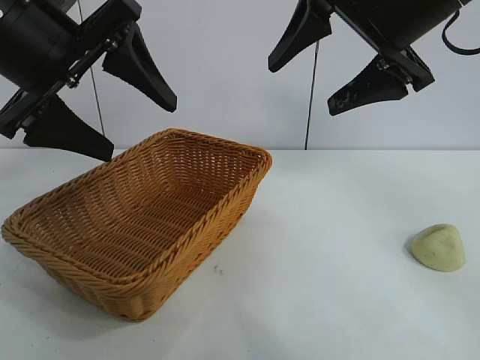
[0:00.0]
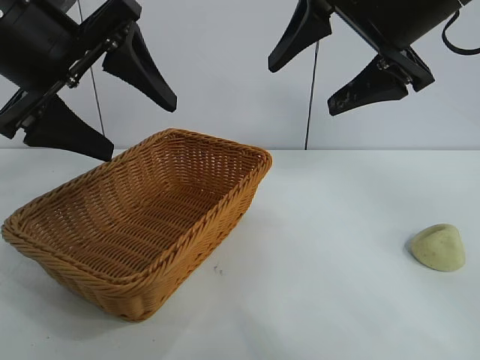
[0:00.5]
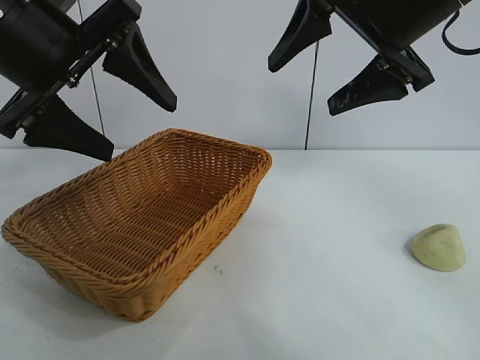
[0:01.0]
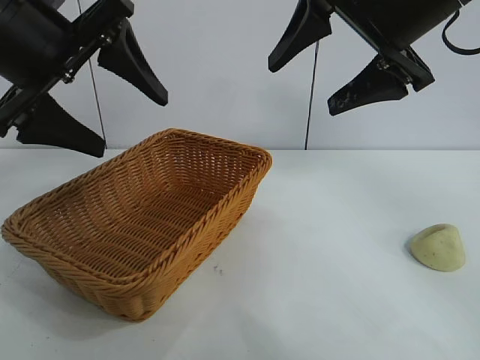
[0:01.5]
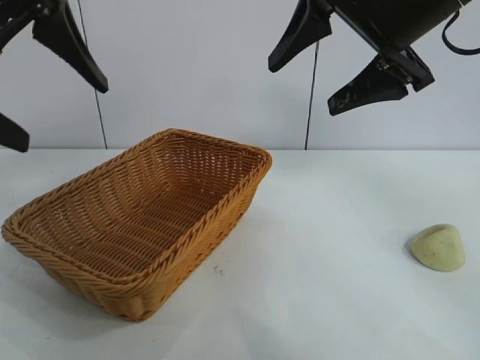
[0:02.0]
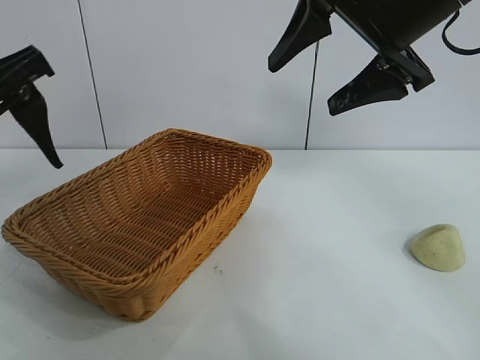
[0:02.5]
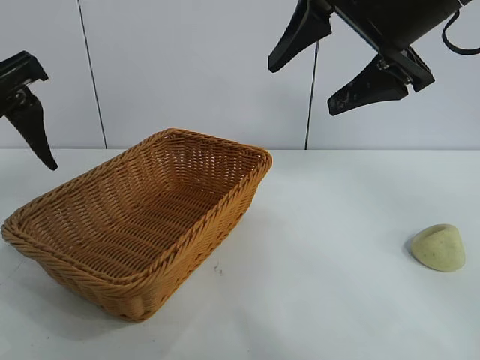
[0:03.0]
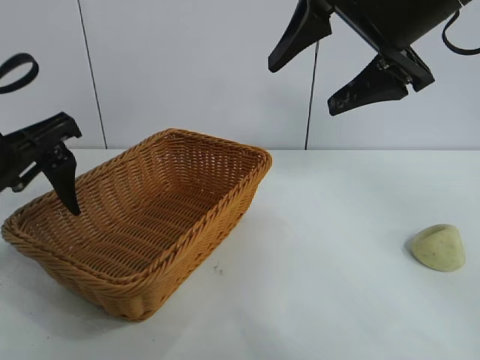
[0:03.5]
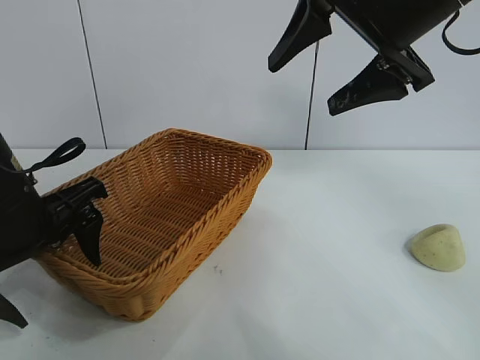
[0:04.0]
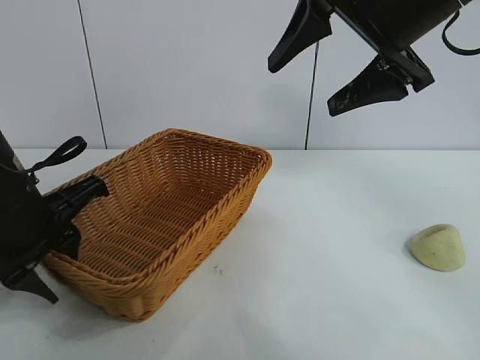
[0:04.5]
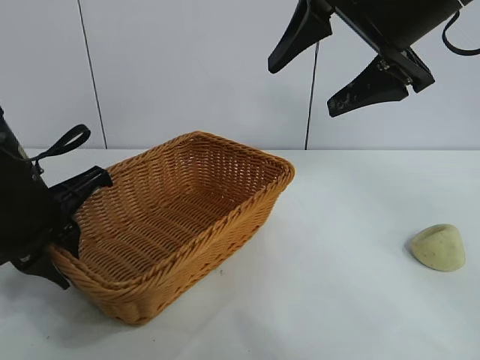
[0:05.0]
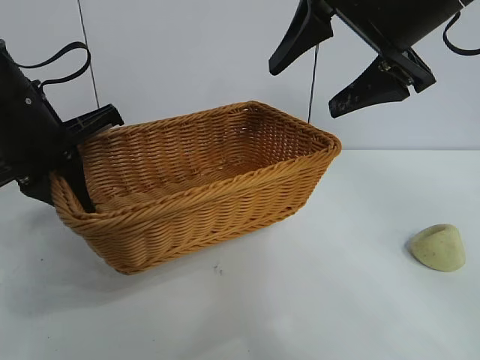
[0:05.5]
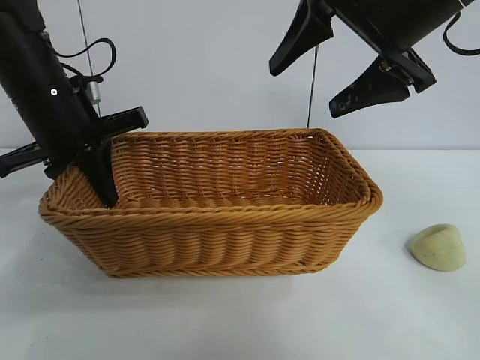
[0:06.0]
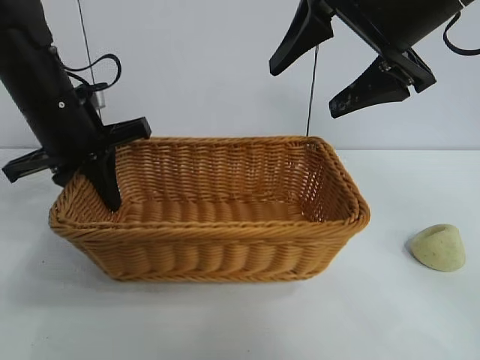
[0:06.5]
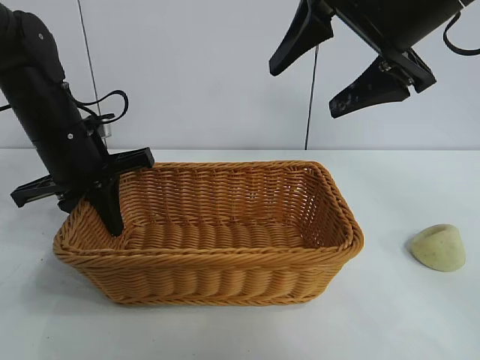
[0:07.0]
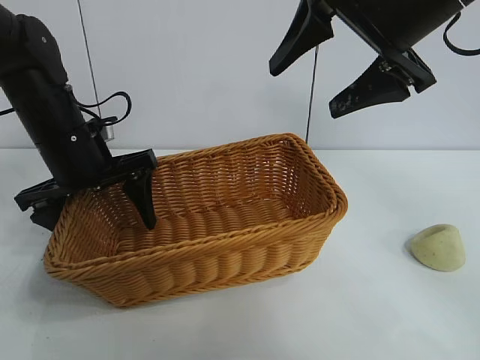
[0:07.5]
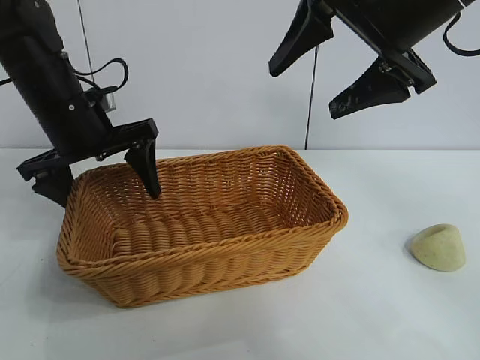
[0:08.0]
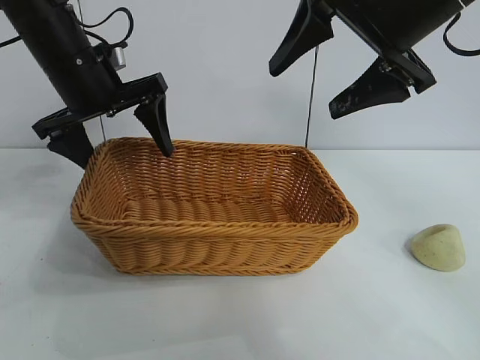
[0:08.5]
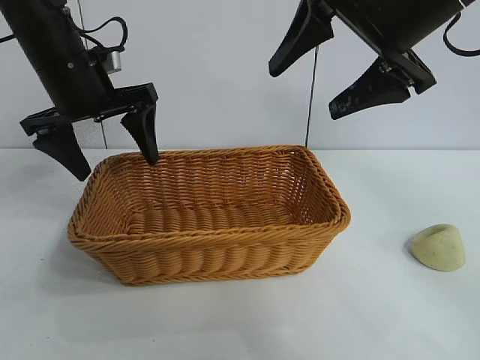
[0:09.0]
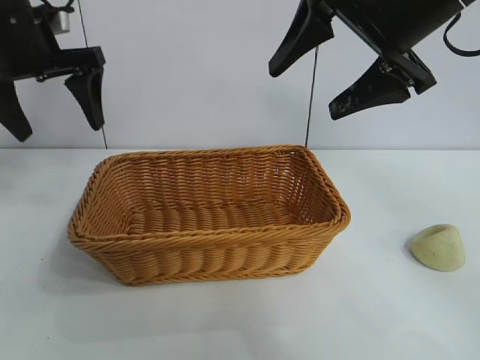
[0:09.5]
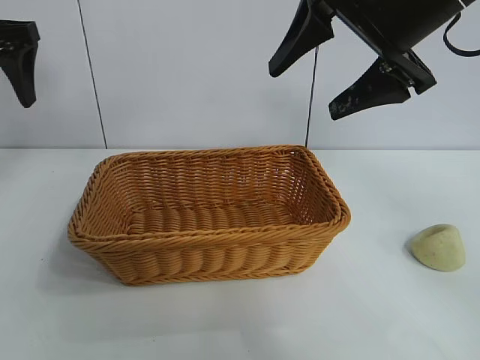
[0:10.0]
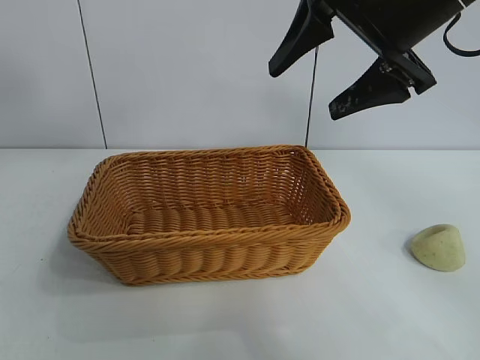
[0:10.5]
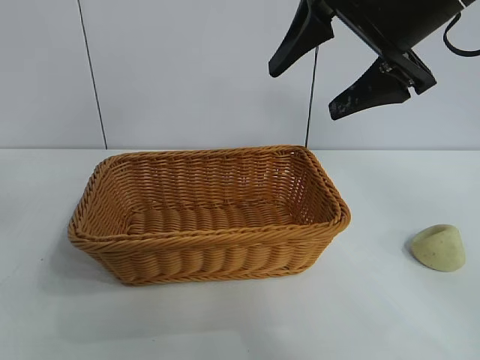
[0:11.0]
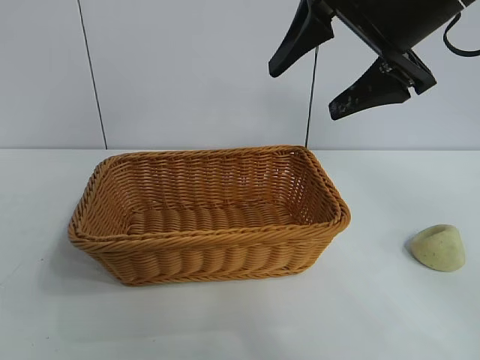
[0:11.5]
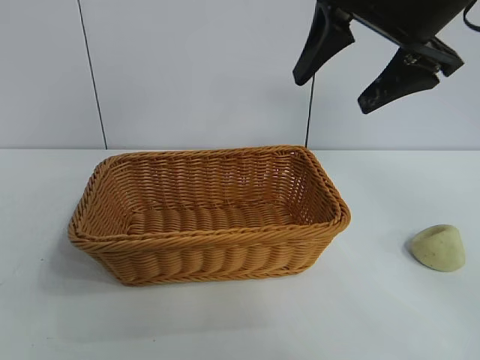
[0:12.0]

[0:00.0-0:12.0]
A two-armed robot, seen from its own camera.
Task of the whole recording: pick up the egg yolk pastry and put it into the basket.
Step, 0:01.5 to 0:04.5: Grasp the basket with left gripper.
Step, 0:05.0 to 0:07.5: Place the basket in the center of view with left gripper.

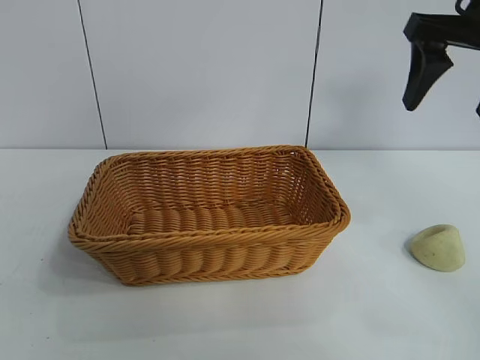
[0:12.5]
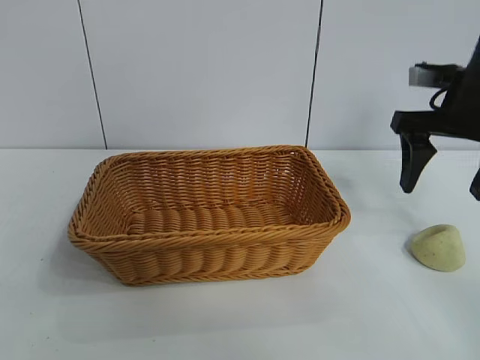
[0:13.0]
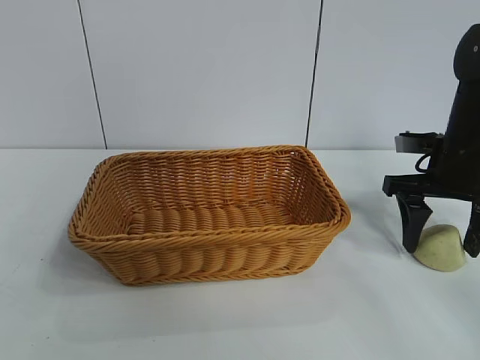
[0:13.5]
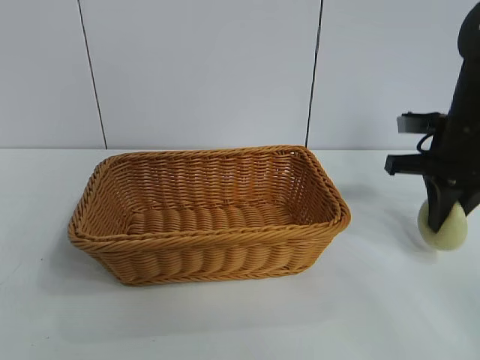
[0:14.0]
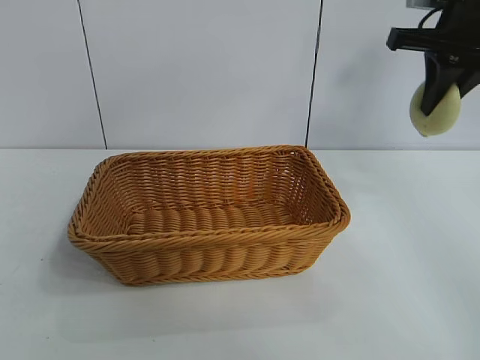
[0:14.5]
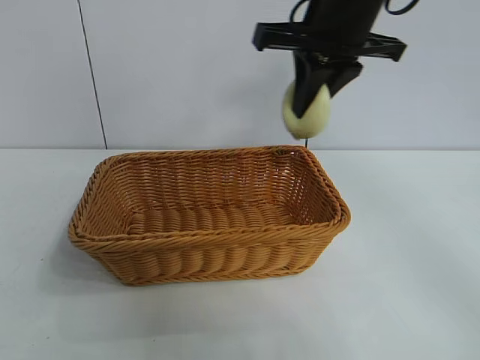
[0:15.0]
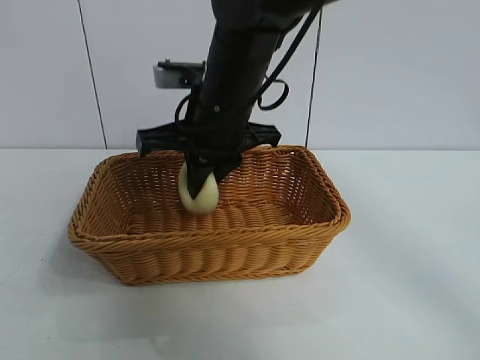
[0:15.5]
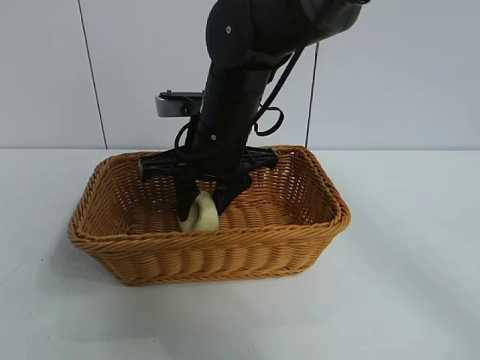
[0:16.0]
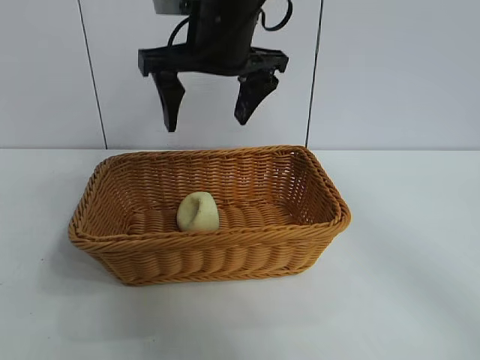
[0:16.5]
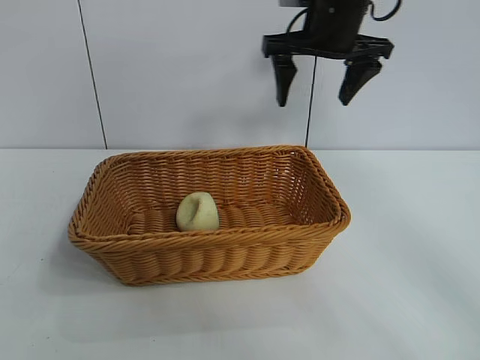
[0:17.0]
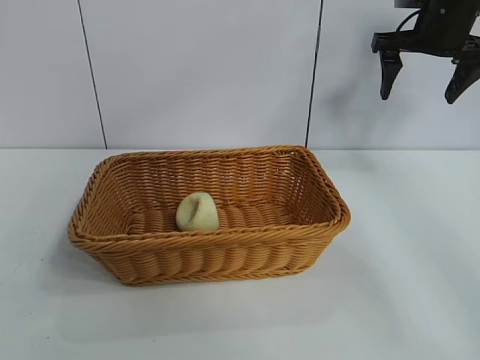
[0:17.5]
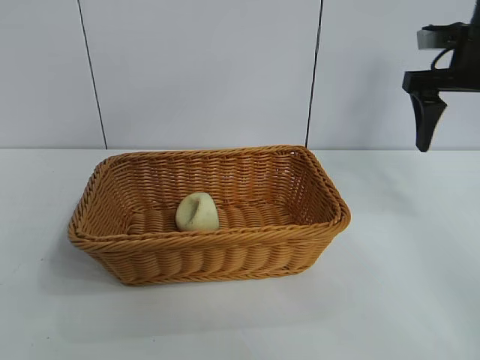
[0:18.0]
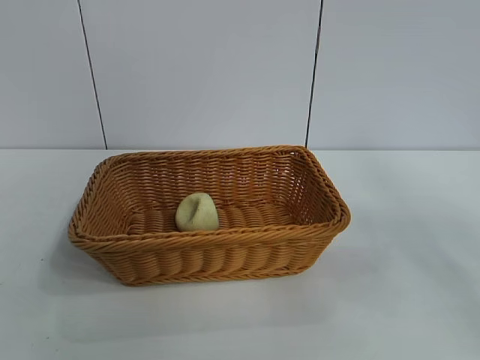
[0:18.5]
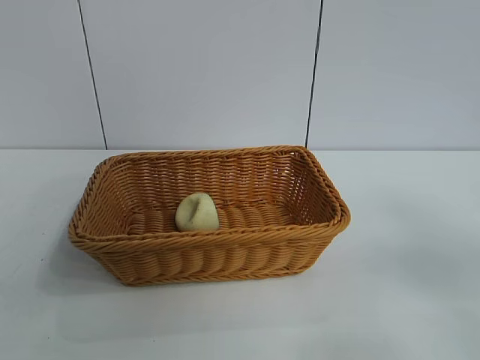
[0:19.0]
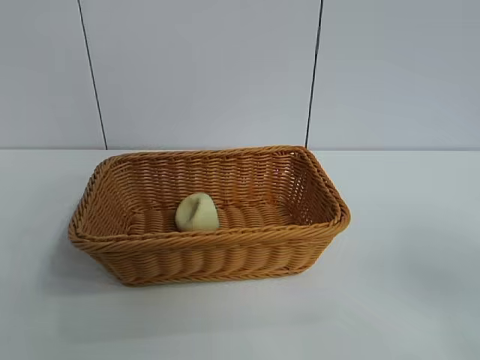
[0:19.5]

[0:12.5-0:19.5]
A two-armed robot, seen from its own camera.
Task of the whole recording: pick up the egg yolk pastry and put it into the basket.
Step, 0:14.0 to 0:16.0: Place the egg yolk pastry in the basket with right gripper.

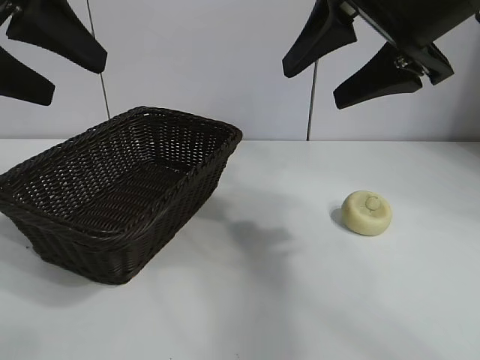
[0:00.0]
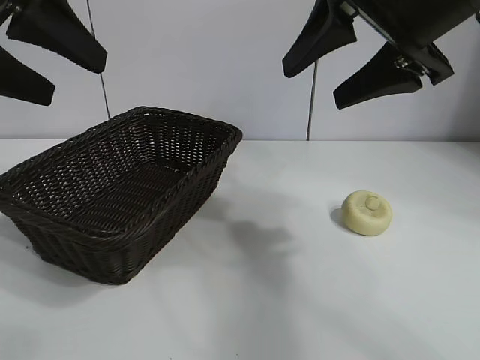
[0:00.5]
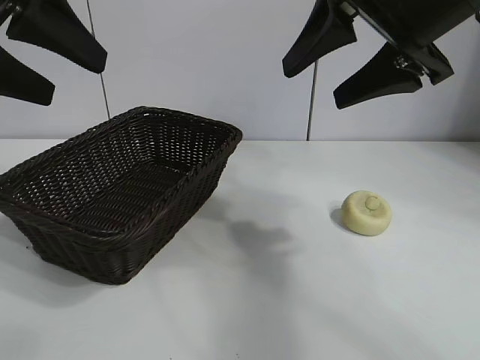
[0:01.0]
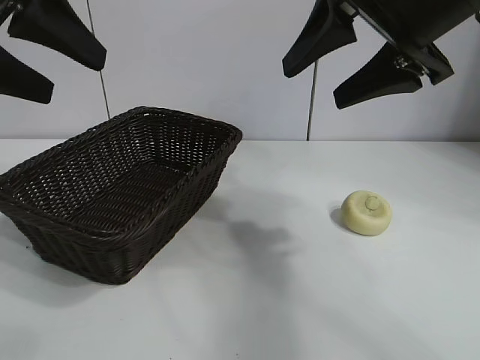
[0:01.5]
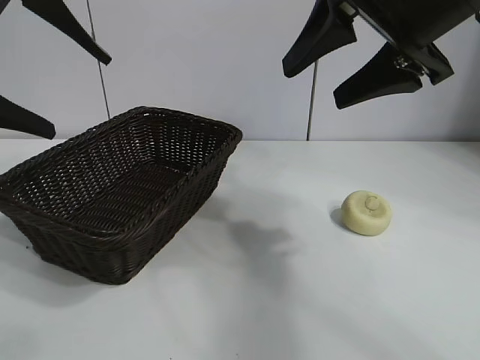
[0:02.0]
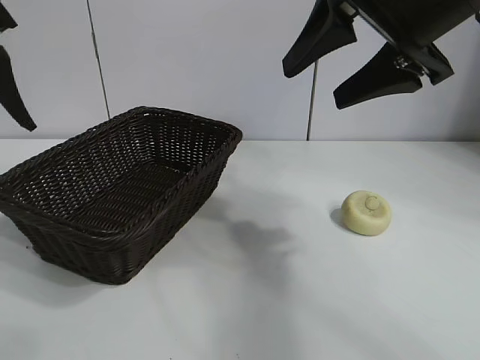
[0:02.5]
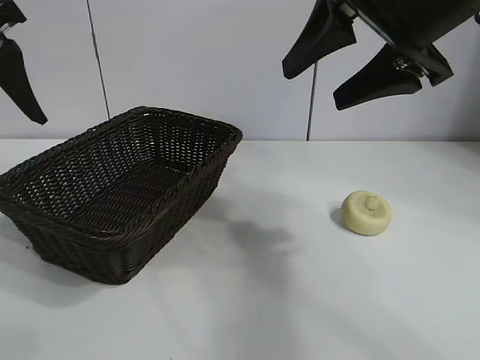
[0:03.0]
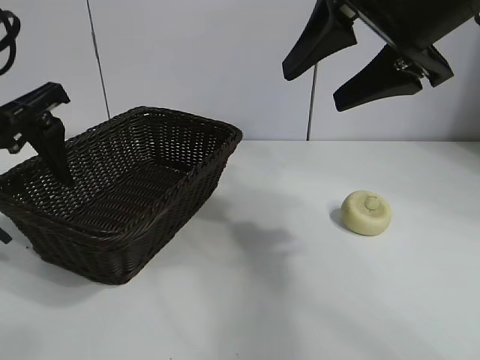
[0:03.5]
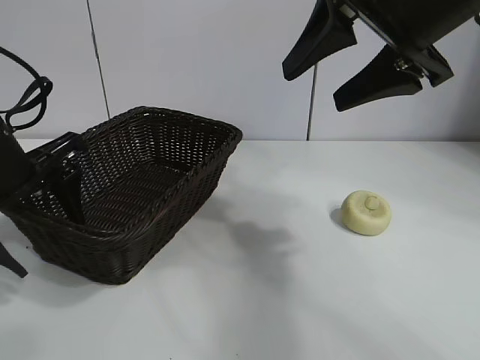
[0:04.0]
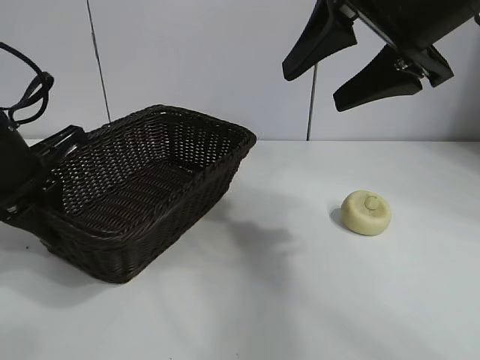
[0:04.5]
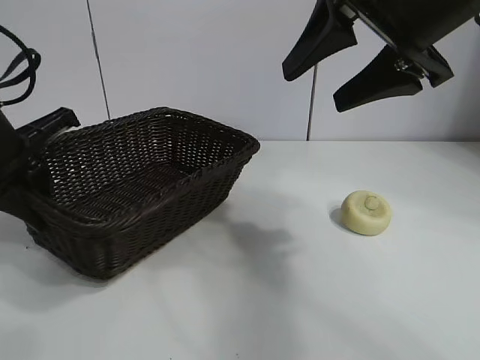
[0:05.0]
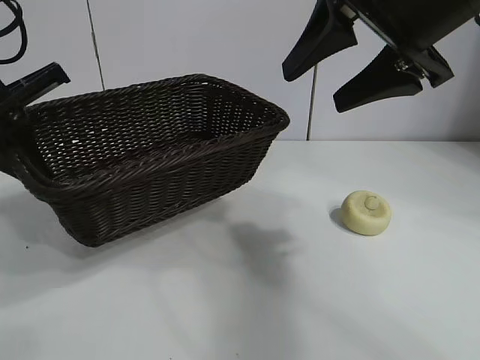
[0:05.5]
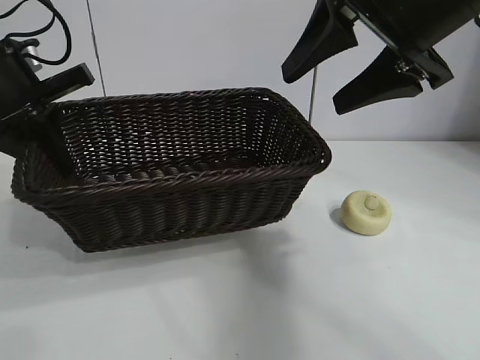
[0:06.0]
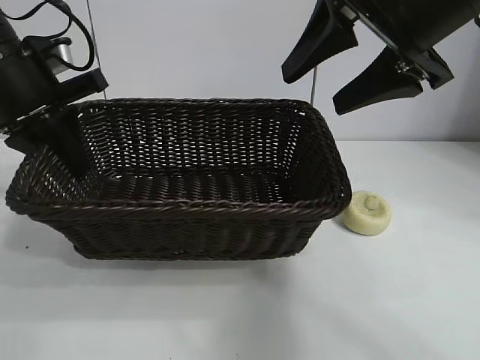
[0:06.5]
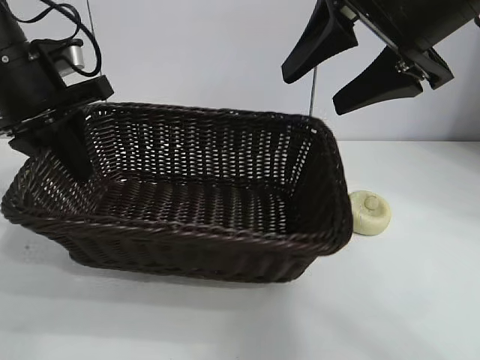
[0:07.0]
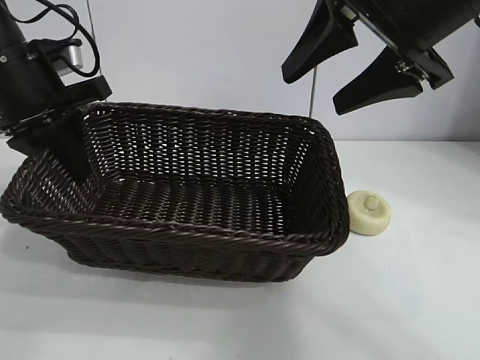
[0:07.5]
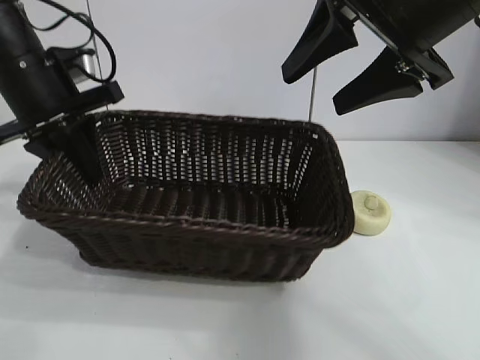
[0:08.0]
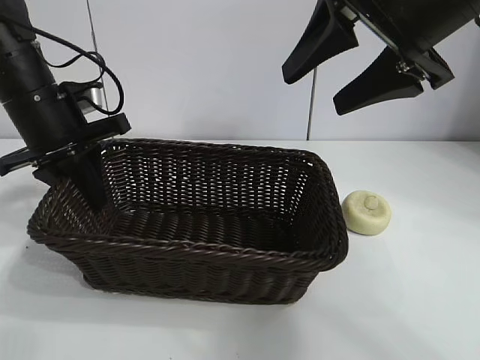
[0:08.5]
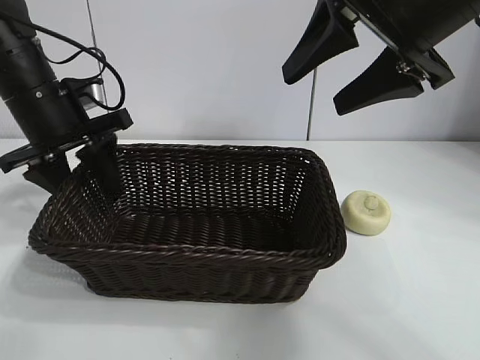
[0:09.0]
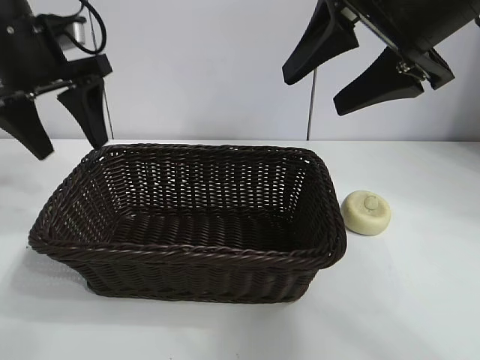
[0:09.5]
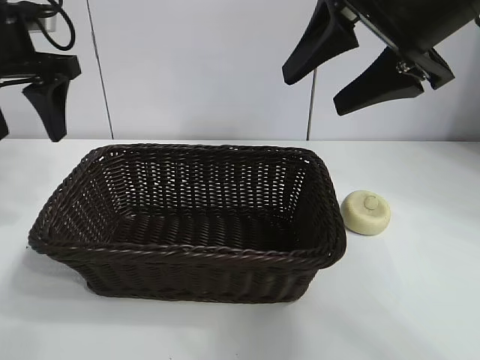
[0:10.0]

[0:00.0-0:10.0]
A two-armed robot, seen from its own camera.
Task of the whole recording: pick up the egg yolk pastry and put it into the basket.
Step, 0:02.0 to 0:04.5: Grasp the basket with left gripper.
Step, 0:05.0 to 0:09.0: Place the basket in the center of view with left gripper.
